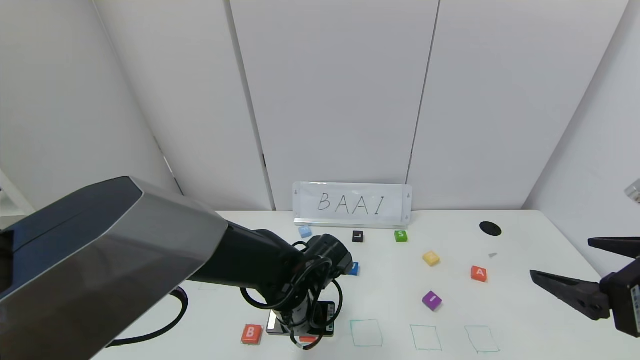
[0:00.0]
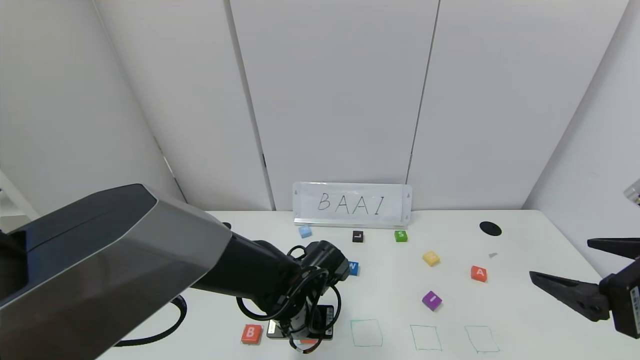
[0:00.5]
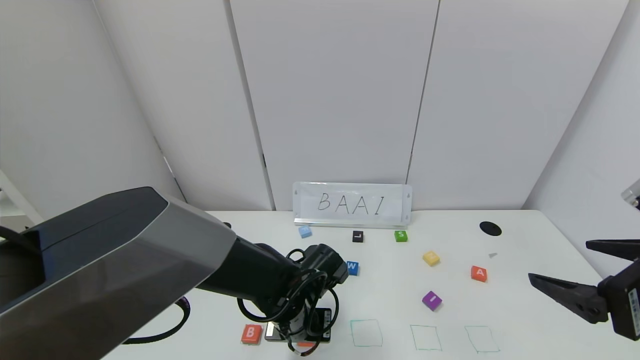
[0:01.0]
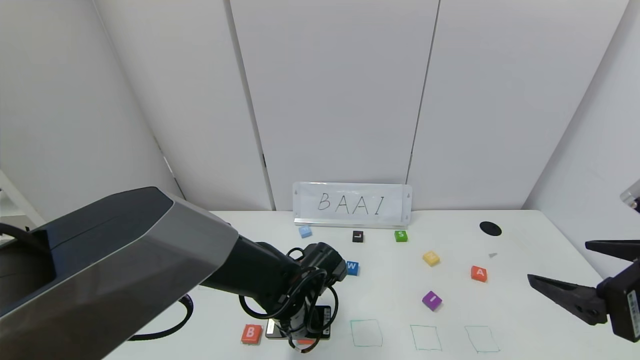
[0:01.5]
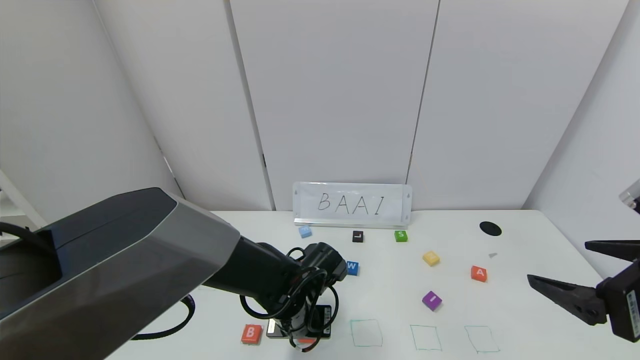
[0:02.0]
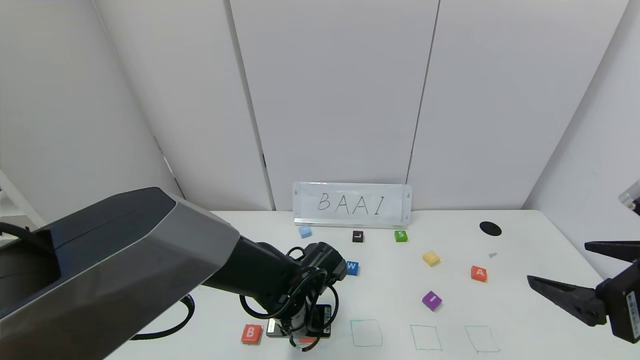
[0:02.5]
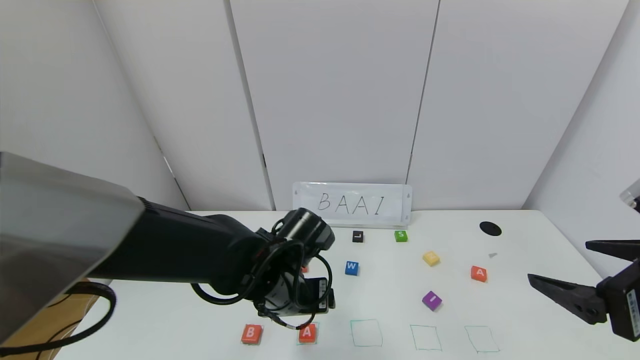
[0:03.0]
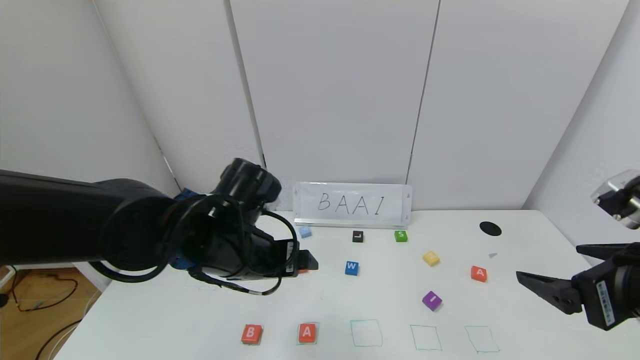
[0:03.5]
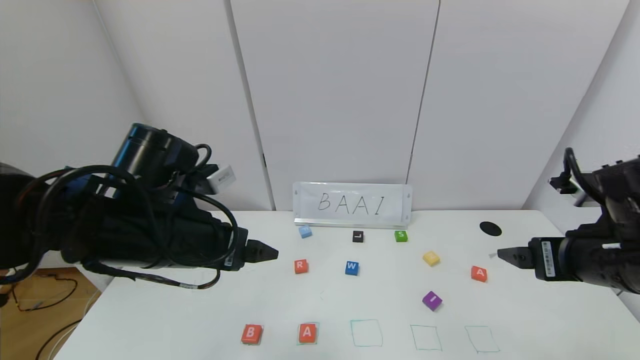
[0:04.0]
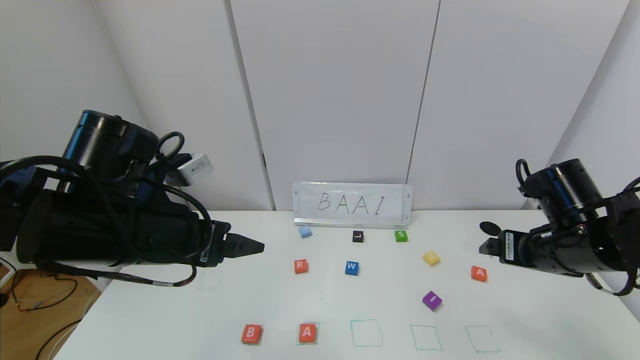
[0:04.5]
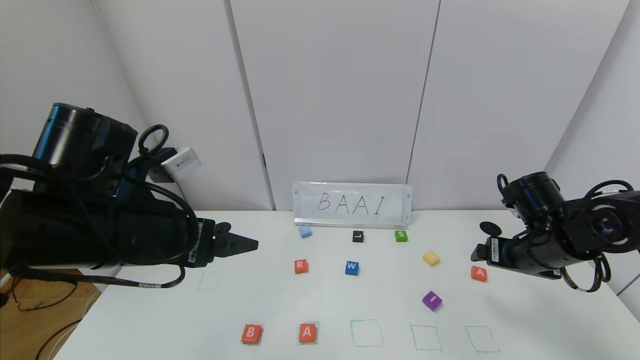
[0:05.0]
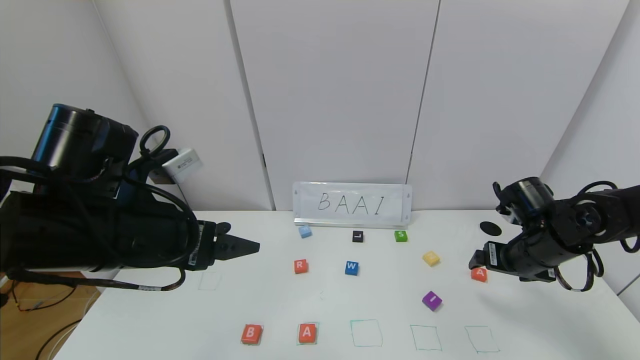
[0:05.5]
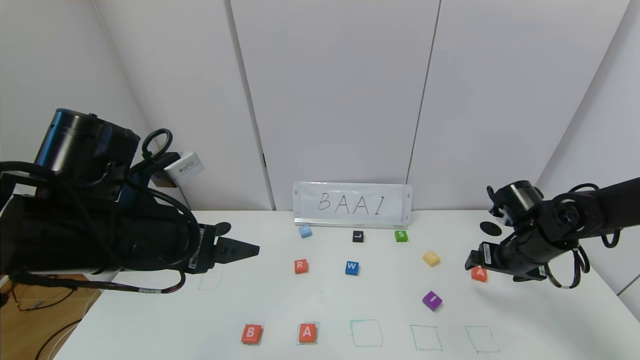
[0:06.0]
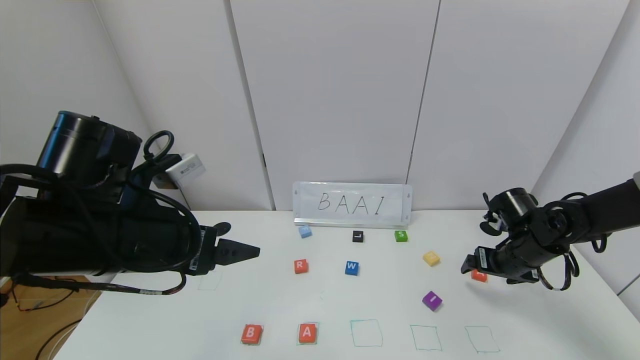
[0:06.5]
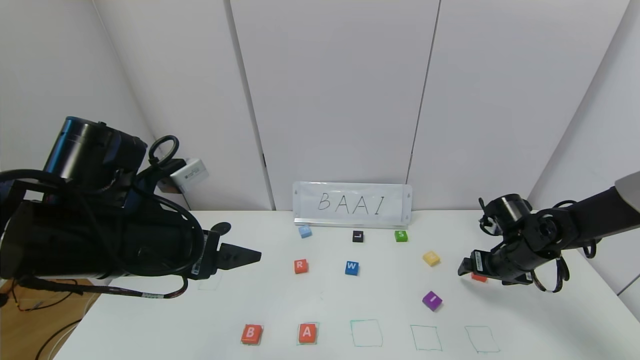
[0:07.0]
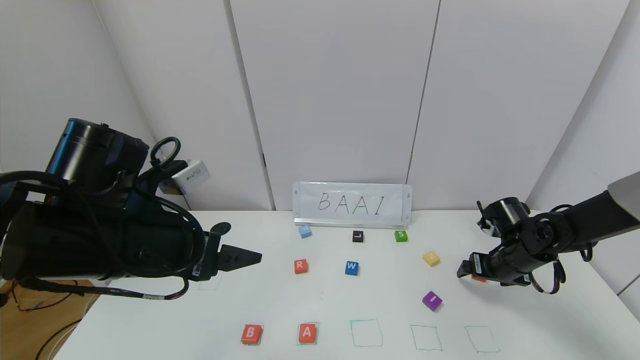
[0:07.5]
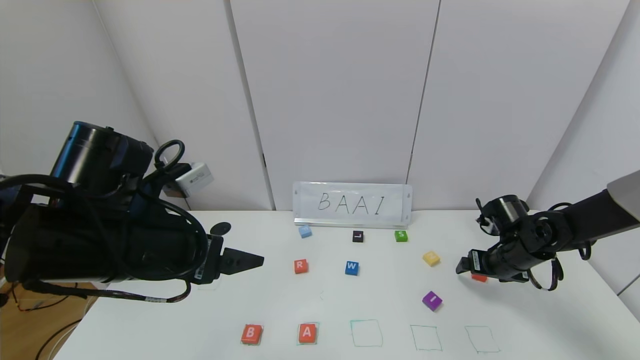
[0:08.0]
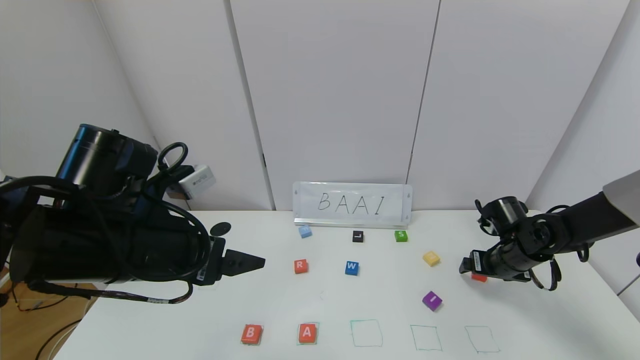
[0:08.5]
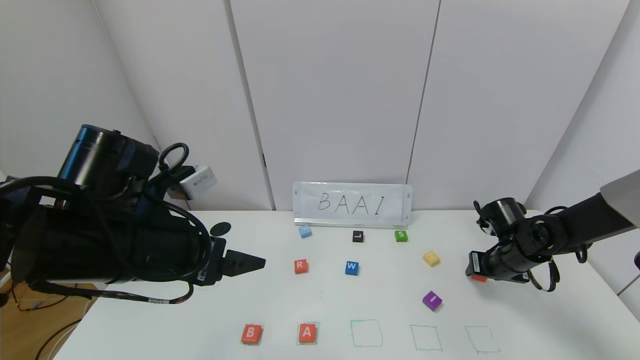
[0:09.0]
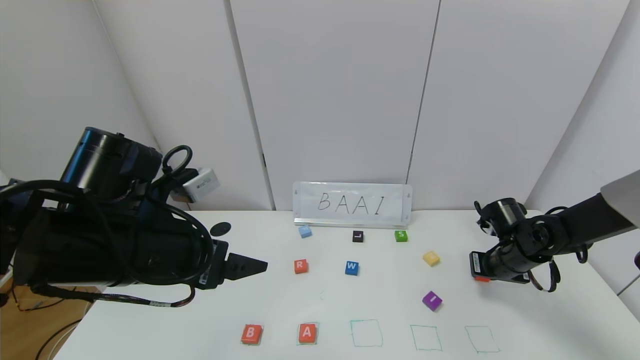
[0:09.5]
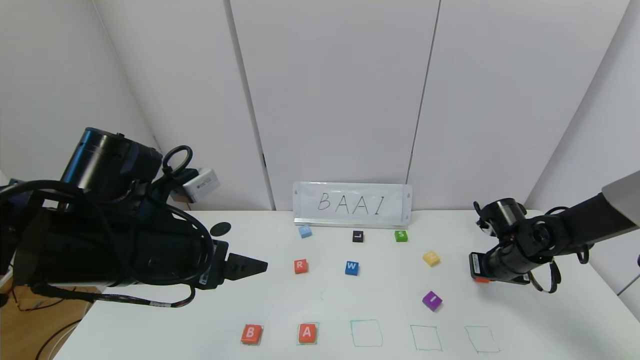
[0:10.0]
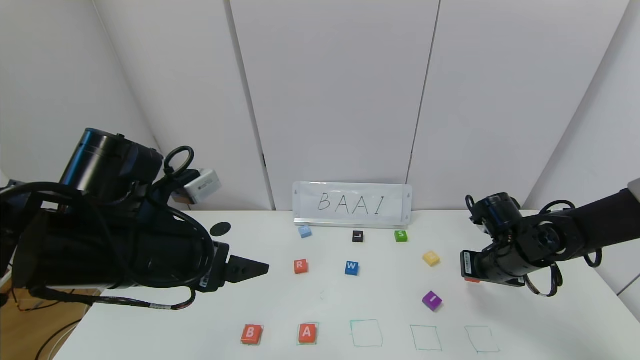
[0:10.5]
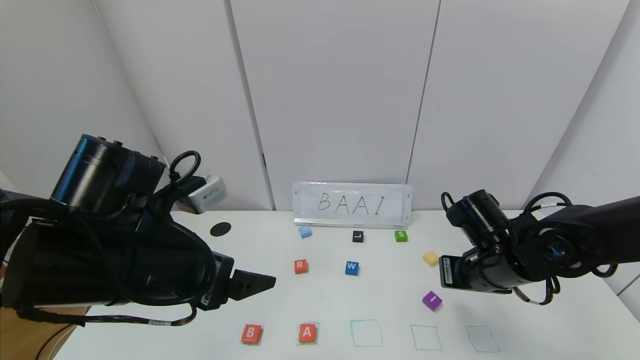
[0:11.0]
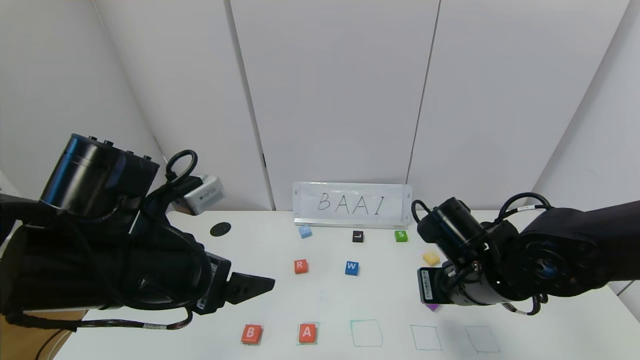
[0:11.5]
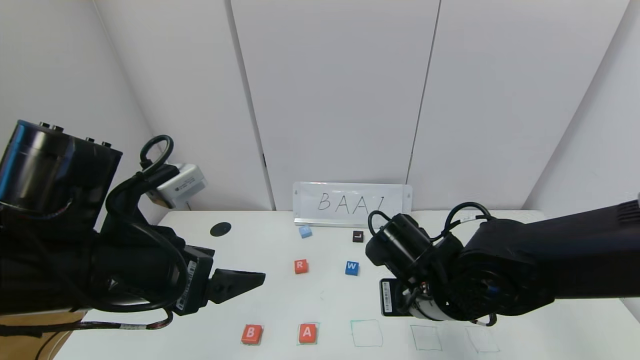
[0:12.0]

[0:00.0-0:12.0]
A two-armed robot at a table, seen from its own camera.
Task of the whole recording: use the gripper to find blocks with the letters b, a, a, and i on the table and arrange them into BAAI, then find r and N and turn the arranged baai into brian.
Step, 0:00.0 to 0:02.5: Place the first block A in the second location.
0:00.0 to 0:02.0: The grippers move only a little.
0:02.0 to 0:04.0: The right gripper travels forward by approximately 10 cm; the left gripper is displaced upward and to the left by about 20 cm, and opens its fingers.
0:04.0 to 0:06.0: The right gripper goes some 15 cm forward and downward.
0:06.0 to 0:08.0: The right gripper changes place by about 5 cm.
0:08.0 to 0:10.0: The right gripper closes up.
0:10.0 to 0:12.0: The right gripper shifts some 25 cm to the left and backward.

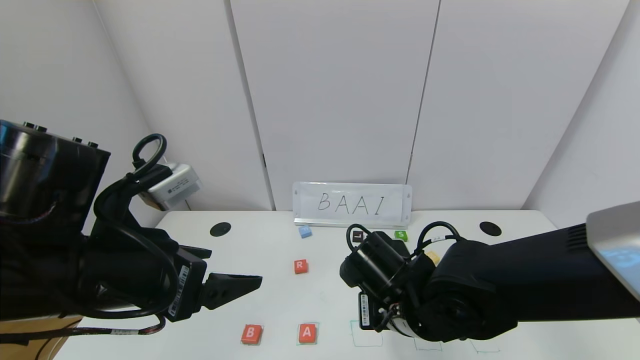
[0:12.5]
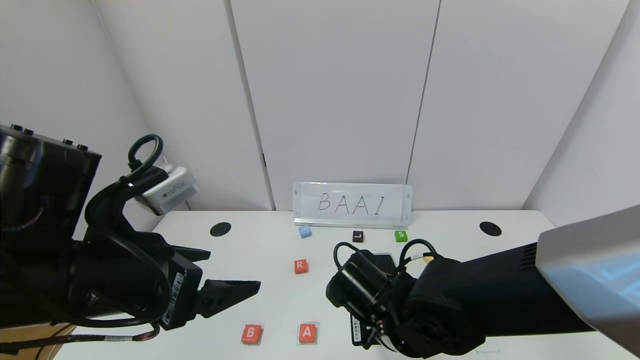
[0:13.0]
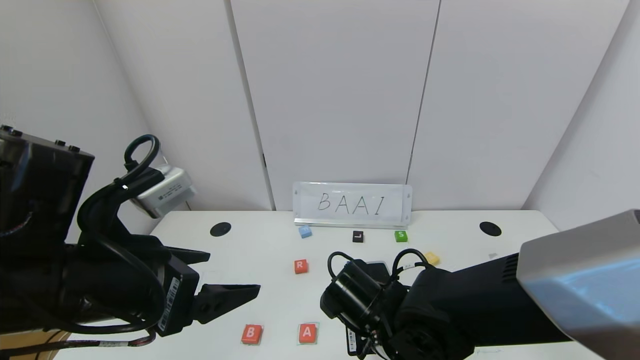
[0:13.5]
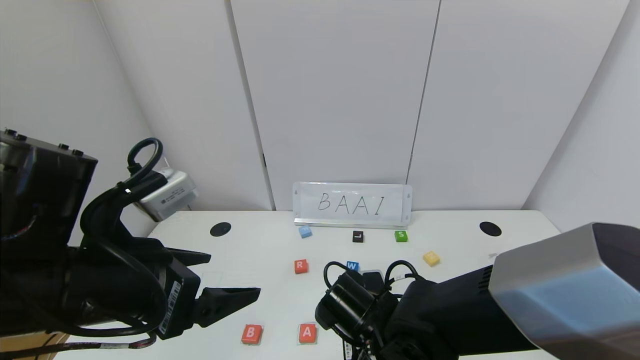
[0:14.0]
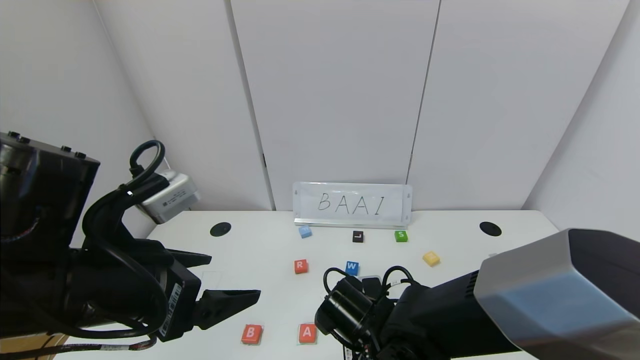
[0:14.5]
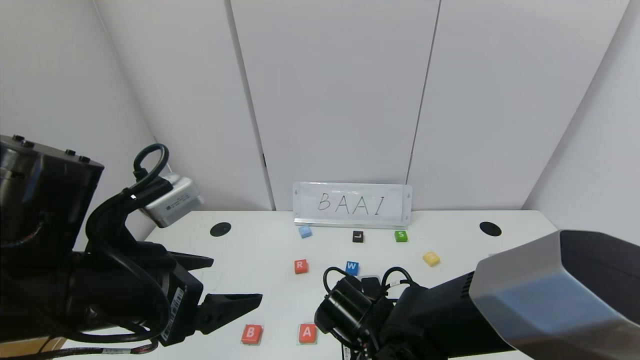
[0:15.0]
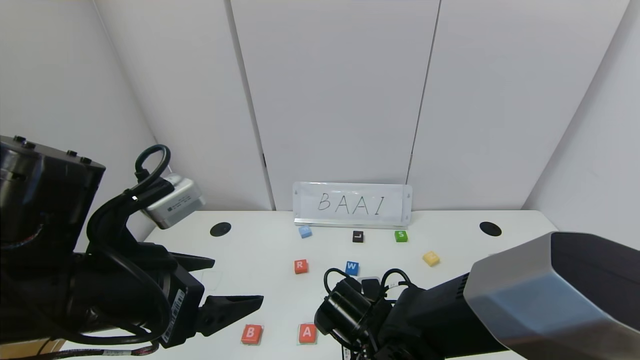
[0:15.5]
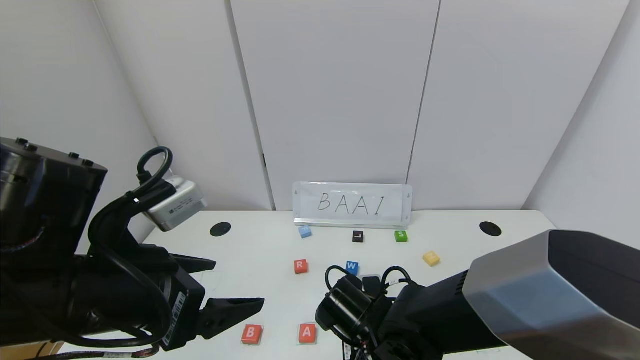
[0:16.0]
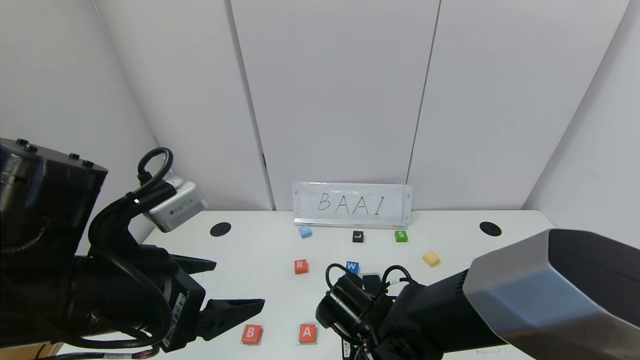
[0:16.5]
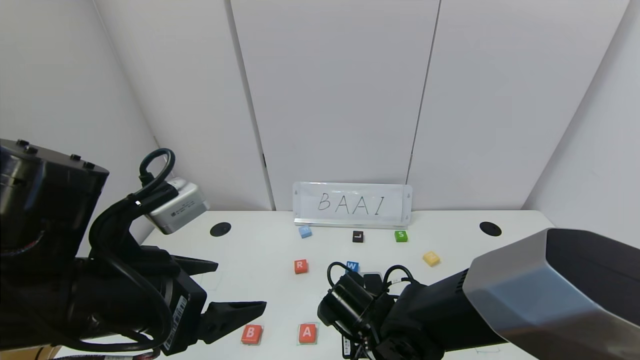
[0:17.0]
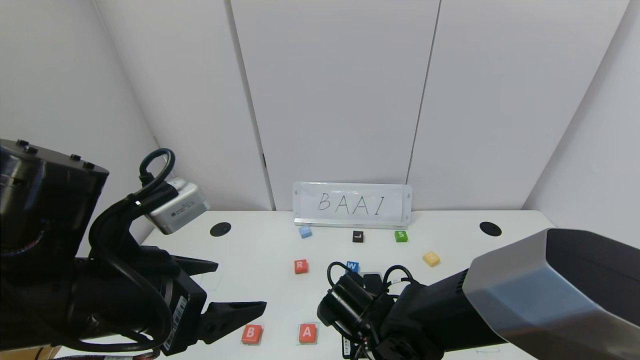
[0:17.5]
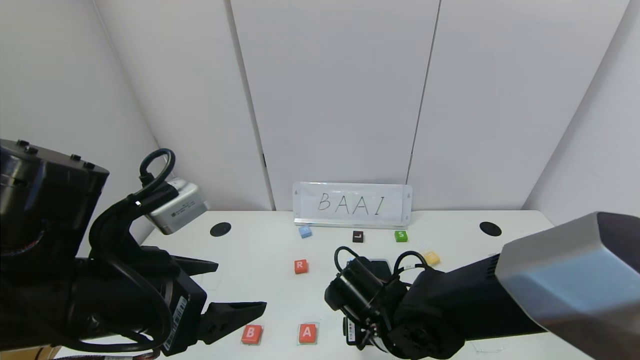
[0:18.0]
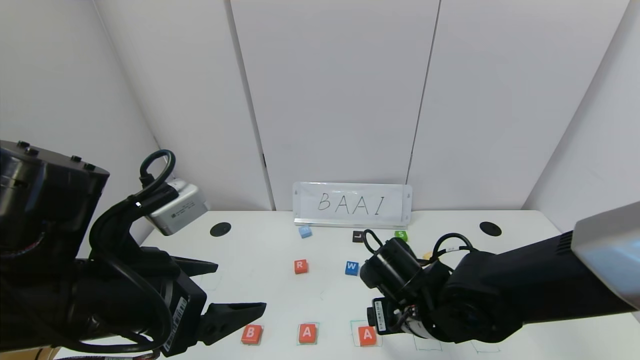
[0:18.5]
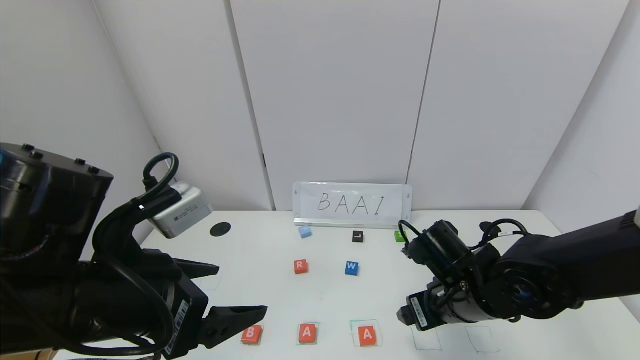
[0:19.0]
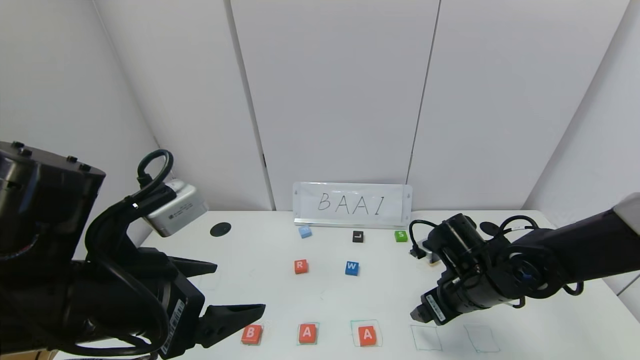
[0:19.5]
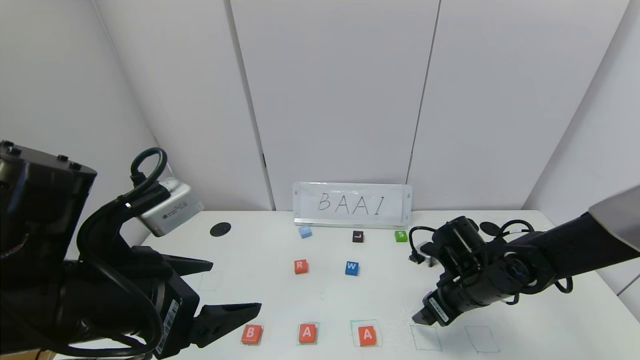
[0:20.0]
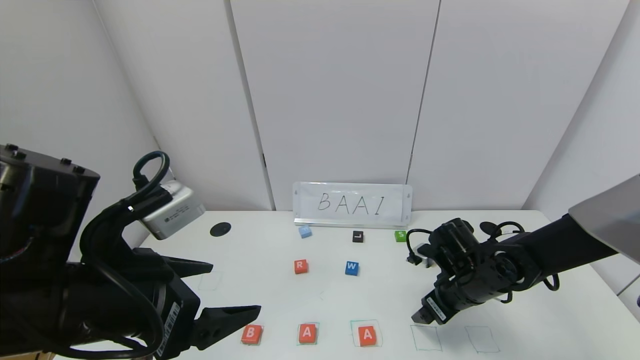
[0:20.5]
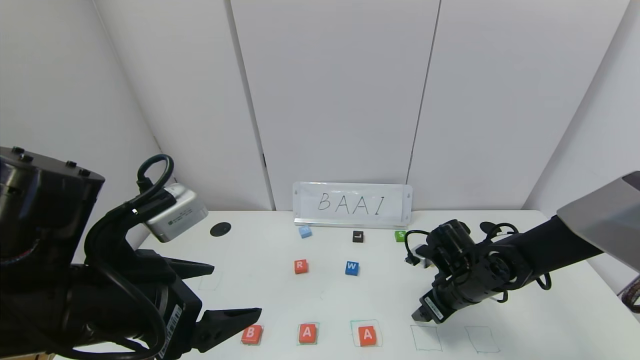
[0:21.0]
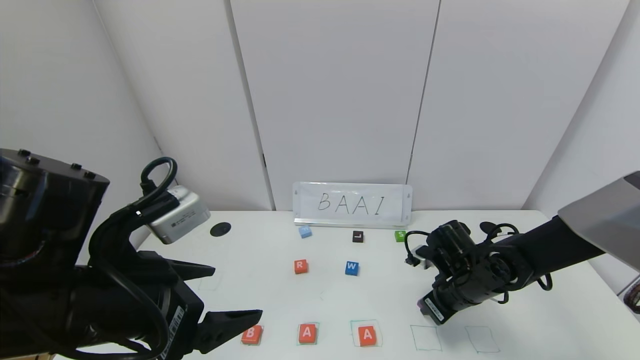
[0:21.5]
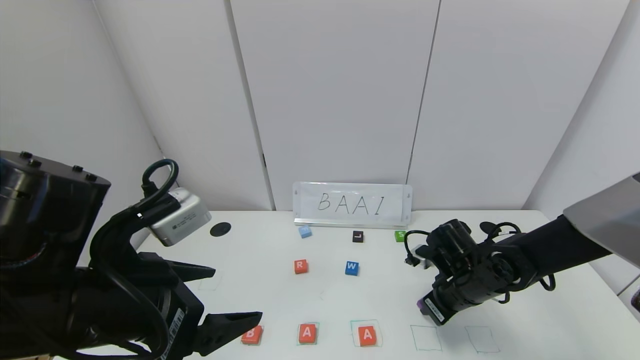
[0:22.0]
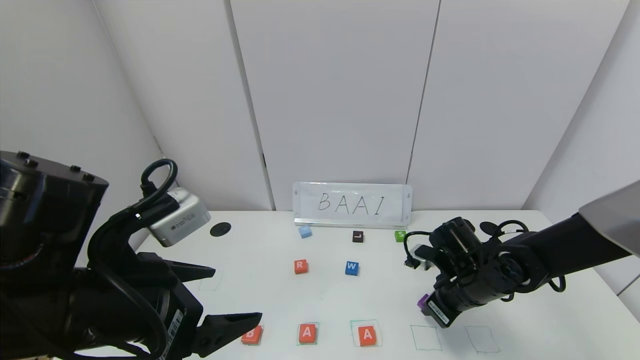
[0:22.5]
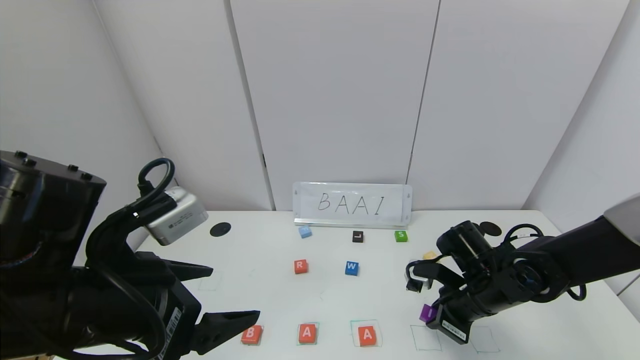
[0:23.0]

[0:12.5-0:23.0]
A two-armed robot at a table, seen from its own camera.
Task of the whole recording: use the gripper to find blocks with the letters b, a, a, and i on the table and arrange them into BAAI, then find r and N and turn the arranged baai into brian.
Step, 0:12.5 to 0:17.5: Place the second block A in the third location.
0:12.5 to 0:14.5: The right gripper is displaced downward by approximately 5 cm.
0:14.5 to 0:16.5: Neither gripper changes place.
0:16.5 to 0:19.0: The right gripper heads to the right and upward, covering some 15 cm, and opens its fingers.
0:19.0 to 0:21.0: The right gripper travels forward and downward by about 10 cm.
0:21.0 to 0:23.0: The right gripper closes its fingers.
